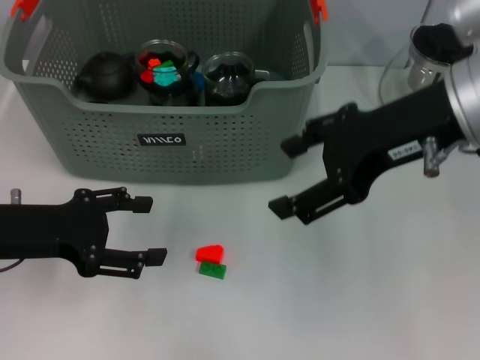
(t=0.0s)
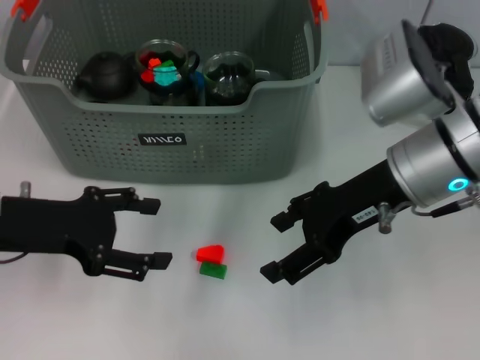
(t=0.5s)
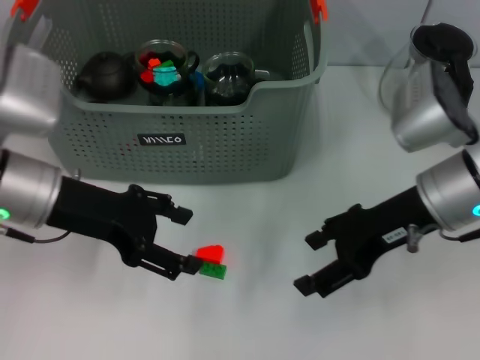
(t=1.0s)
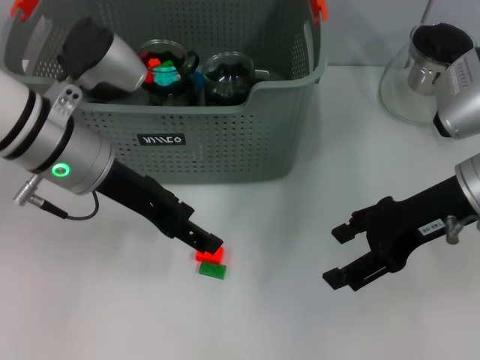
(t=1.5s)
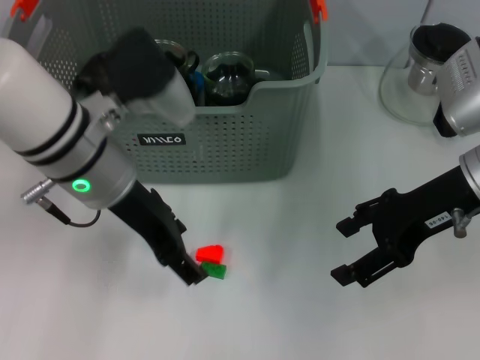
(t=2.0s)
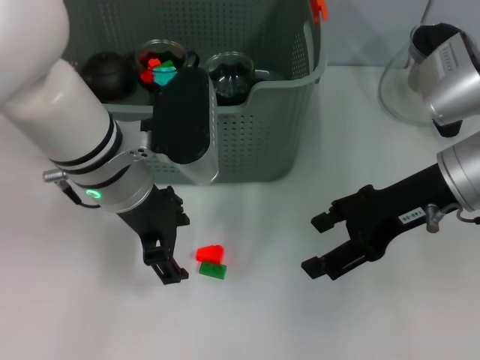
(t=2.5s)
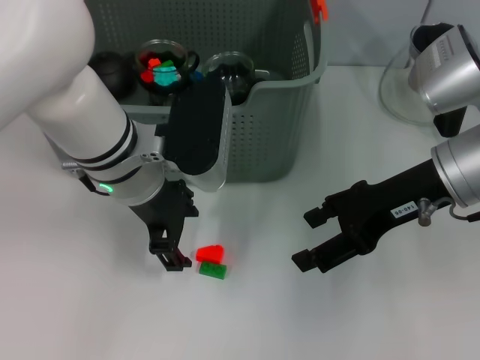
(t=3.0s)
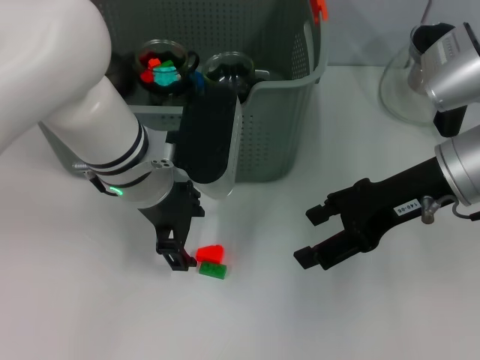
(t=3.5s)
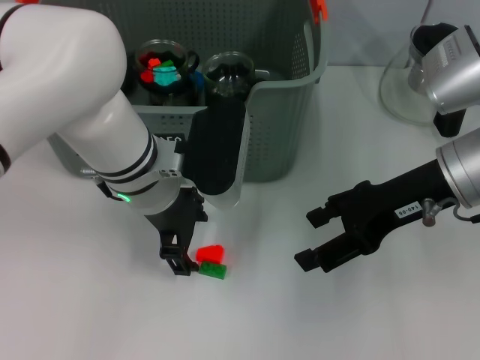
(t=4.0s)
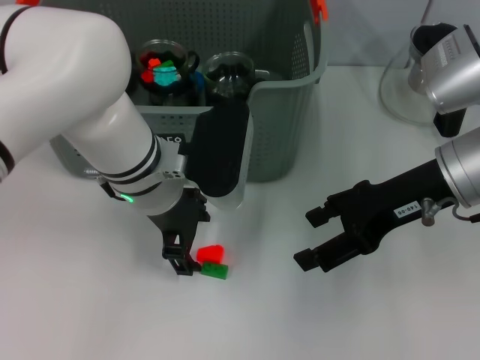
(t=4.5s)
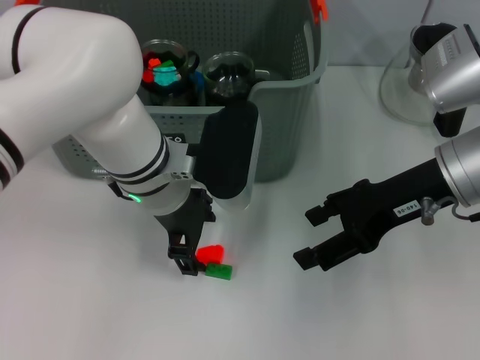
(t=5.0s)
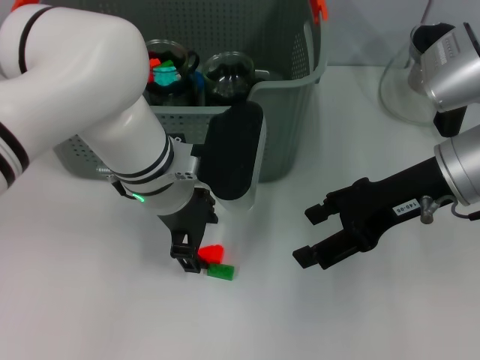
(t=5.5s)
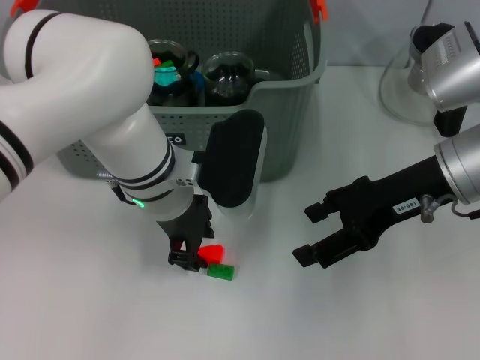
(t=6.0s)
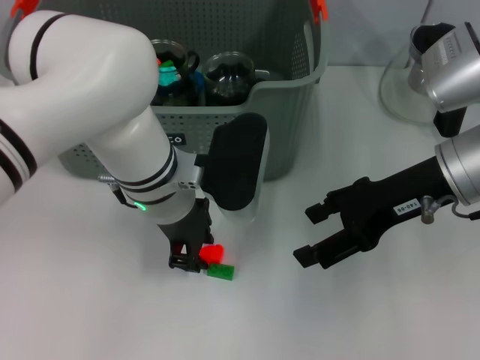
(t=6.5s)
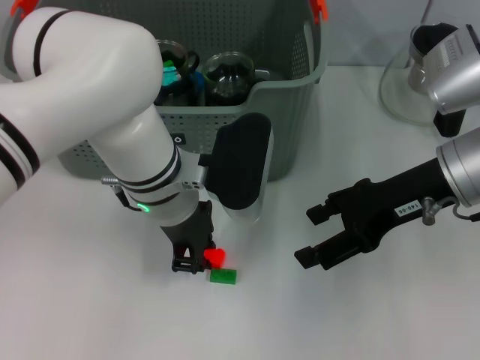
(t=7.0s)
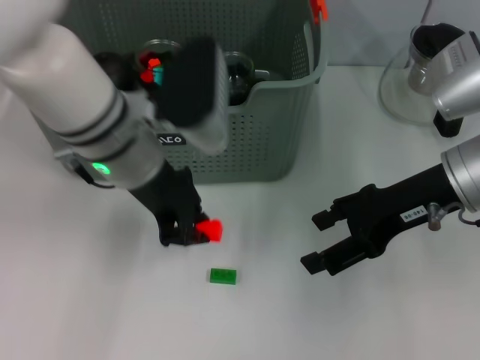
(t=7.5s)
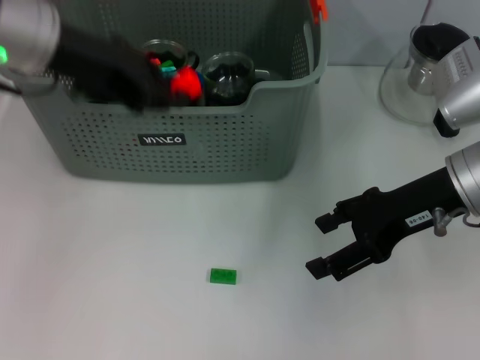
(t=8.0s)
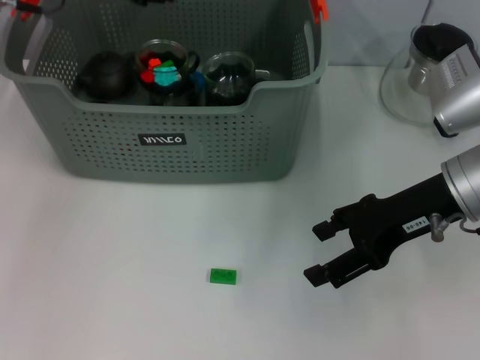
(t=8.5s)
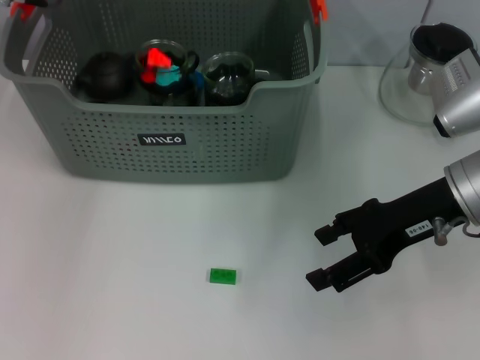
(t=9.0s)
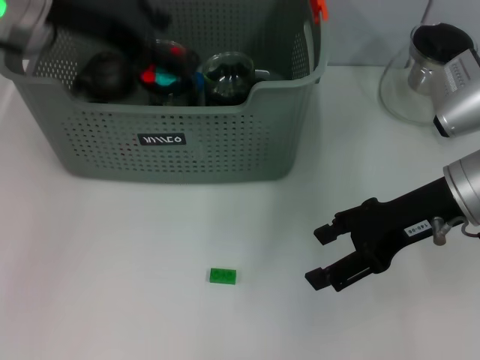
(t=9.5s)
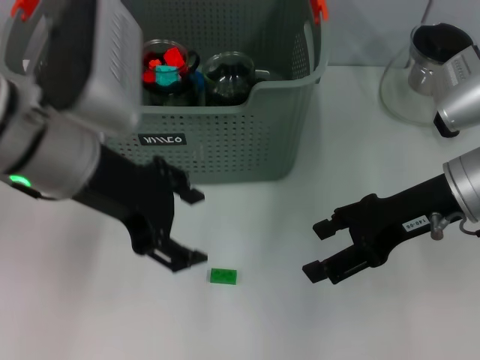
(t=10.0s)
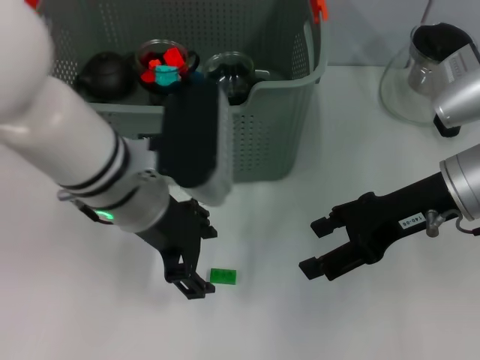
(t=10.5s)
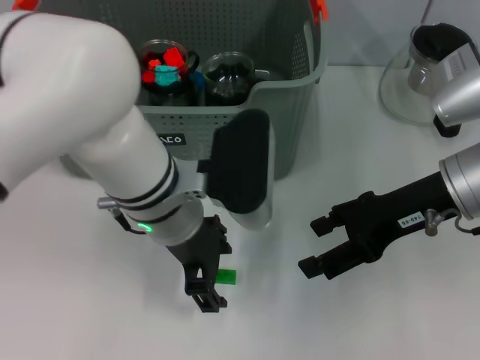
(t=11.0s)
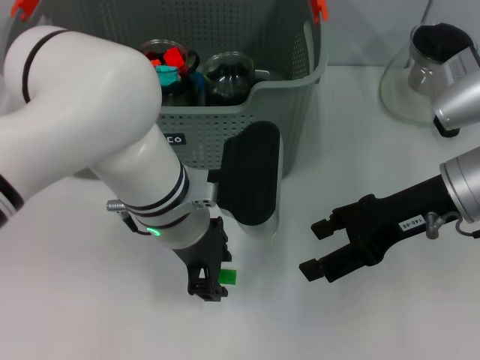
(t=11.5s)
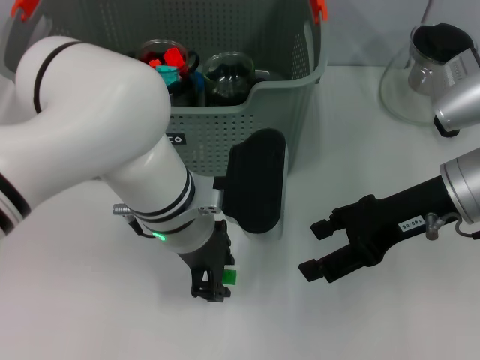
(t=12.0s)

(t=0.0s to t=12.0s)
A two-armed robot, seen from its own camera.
Task of the whole recording: pick up the teacup on the table and place it into the storage bin, pick up the block on the table and place it into the storage bin.
Step, t=0.0s - t=6.5s: Grasp the orange block with left gripper.
Step, t=7.0s - t=9.0s: Place the orange block in the storage box with left gripper.
t=0.0s - t=2.0s: The right gripper moves downward, about 10 cm. The left gripper is displaced to the right, upward and forward by roughly 15 cm.
t=2.0s - t=4.0s: The left gripper changes place by approximately 5 cm.
t=4.0s - t=6.0s: The left gripper closes up.
t=6.0s - t=8.0s: The left gripper goes roughly 20 cm upward and to the left.
t=8.0s - t=10.0s: The left gripper travels backward by about 5 cm, and opens up.
t=10.0s - t=12.0s: The left gripper moves to the right and downward, roughly 15 cm, and closes its fingers.

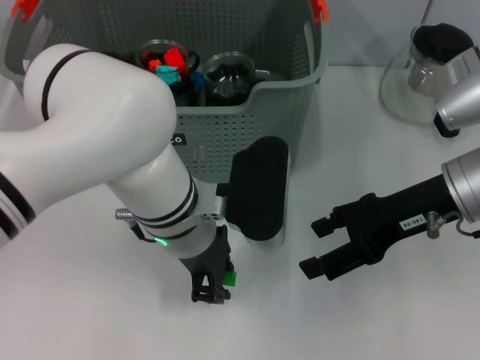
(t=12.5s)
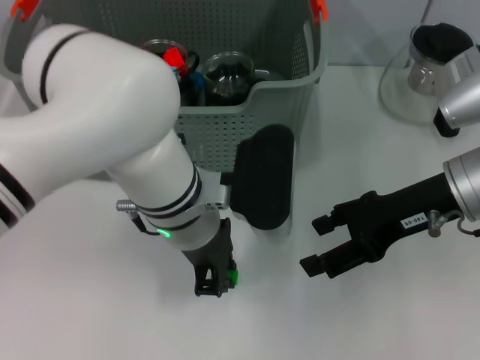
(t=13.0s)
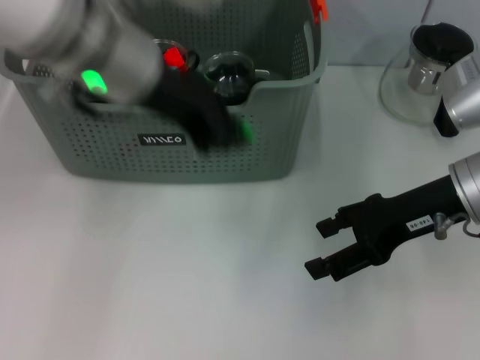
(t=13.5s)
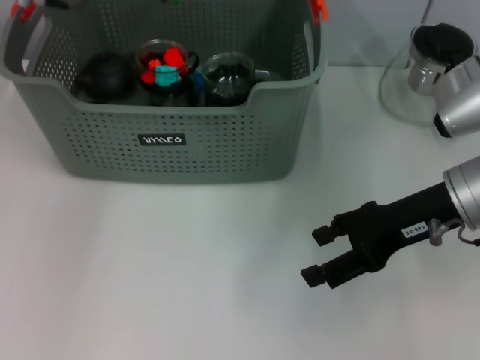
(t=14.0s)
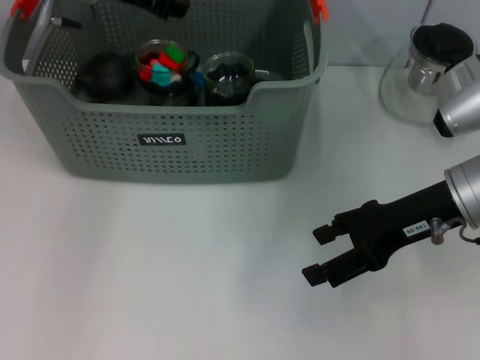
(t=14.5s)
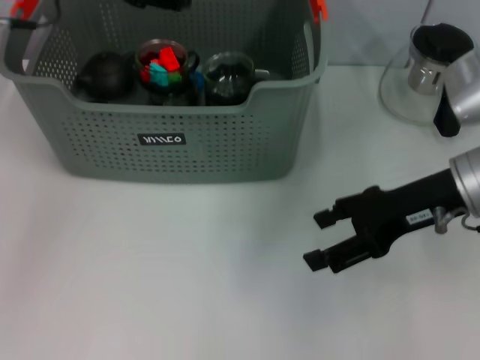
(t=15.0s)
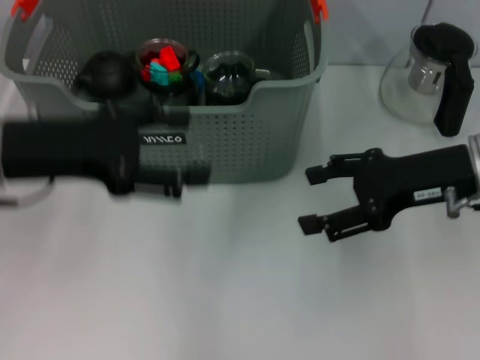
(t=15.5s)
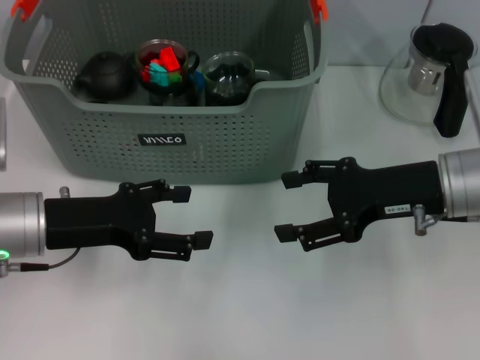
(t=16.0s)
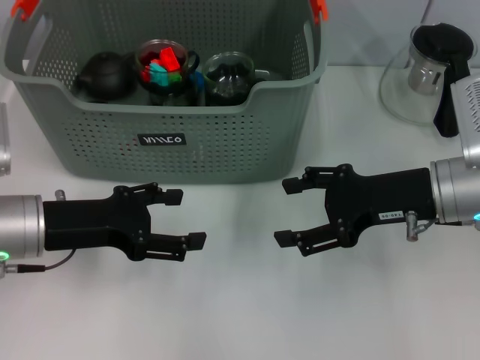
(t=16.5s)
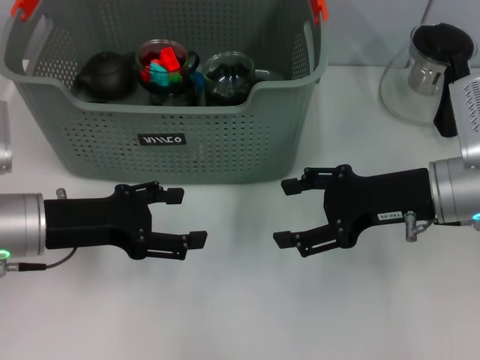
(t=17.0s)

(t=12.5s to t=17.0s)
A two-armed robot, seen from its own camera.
Task of the whole recording: pick up the teacup on the table and place it into the storage bin, pick up the block on the table and place it into the storage bin.
Step, t=13.0s - t=14.5s: Place the green block in the storage box with left gripper.
t=12.5s - t=14.5s: The left gripper shifts about 25 cm forward, to the left and upward.
t=14.5s - t=17.0s: The left gripper heads backward and downward, covering about 25 cm, and opens.

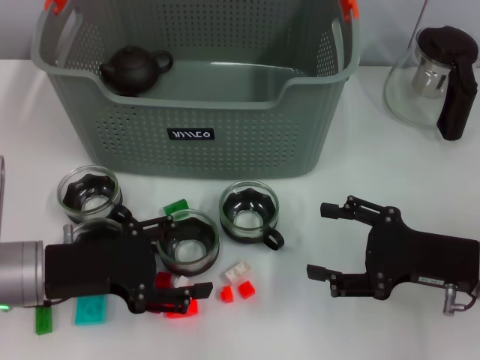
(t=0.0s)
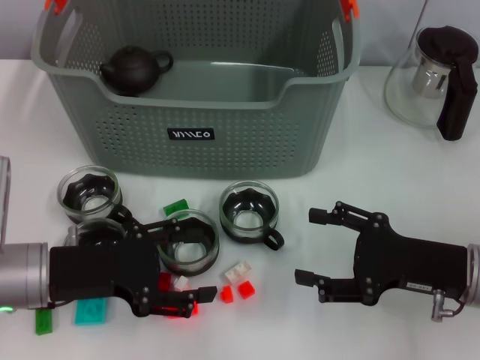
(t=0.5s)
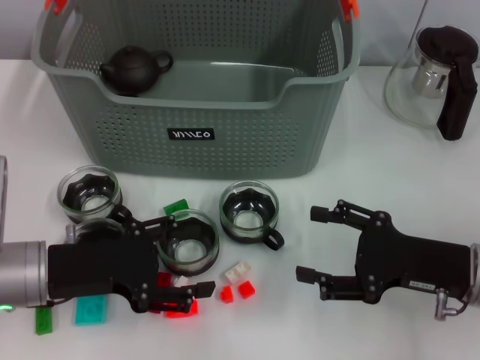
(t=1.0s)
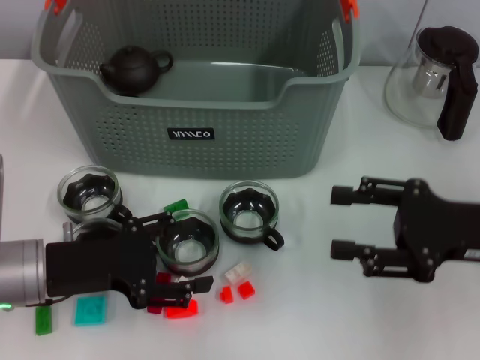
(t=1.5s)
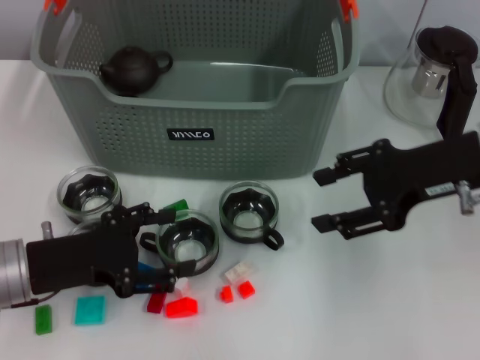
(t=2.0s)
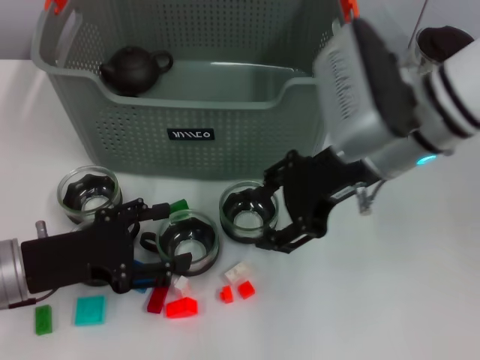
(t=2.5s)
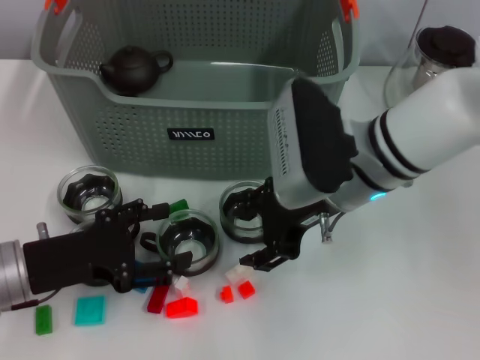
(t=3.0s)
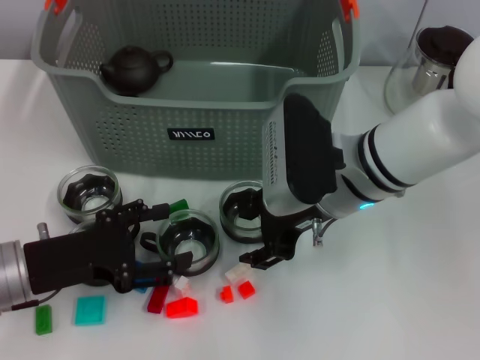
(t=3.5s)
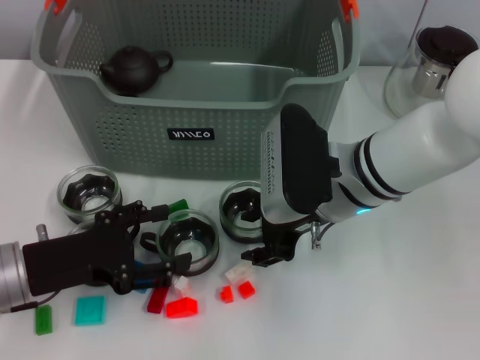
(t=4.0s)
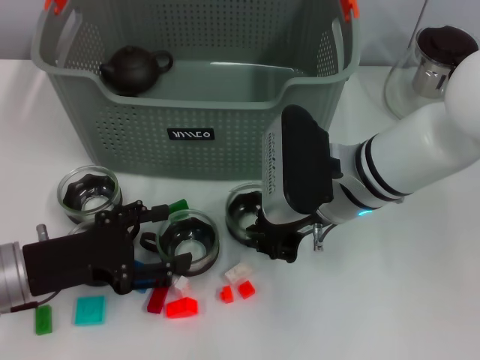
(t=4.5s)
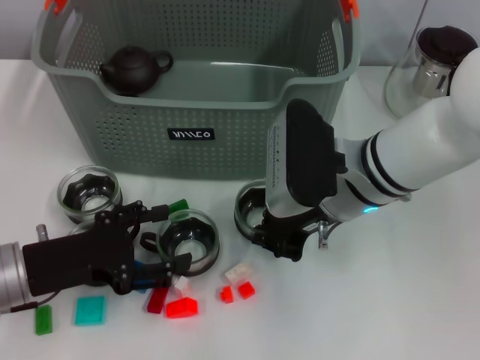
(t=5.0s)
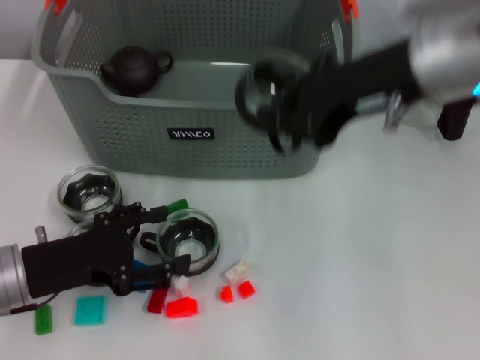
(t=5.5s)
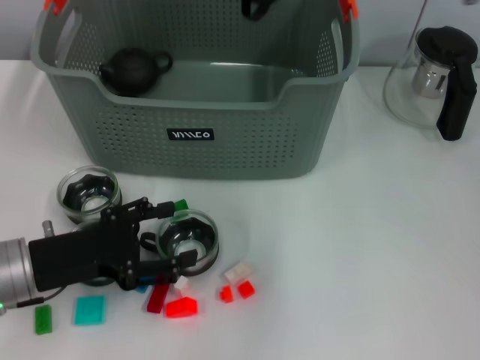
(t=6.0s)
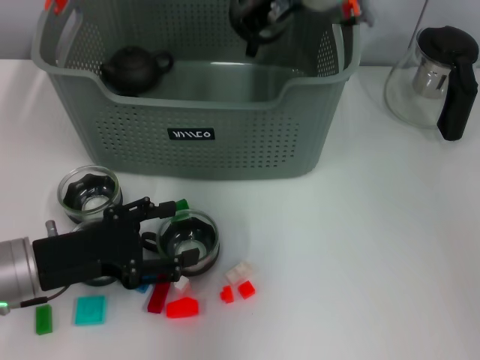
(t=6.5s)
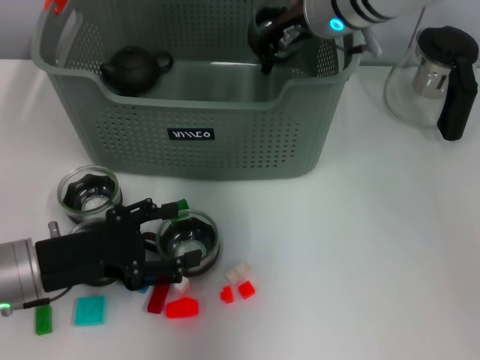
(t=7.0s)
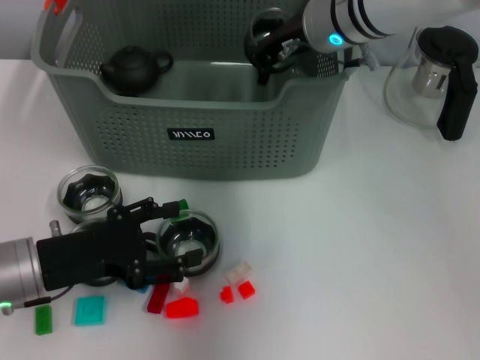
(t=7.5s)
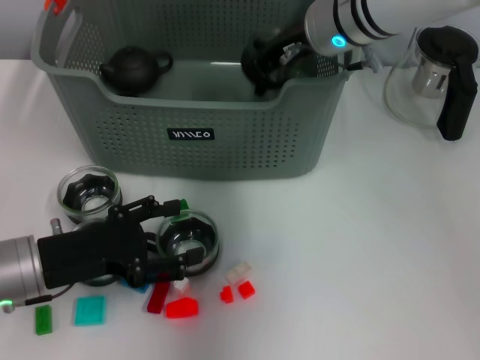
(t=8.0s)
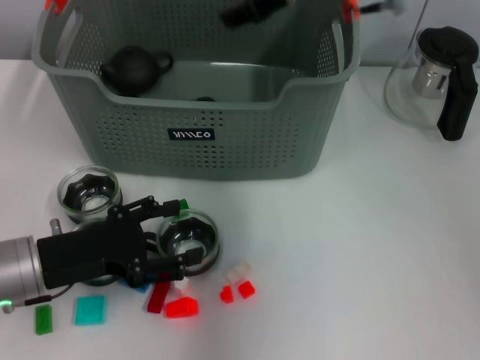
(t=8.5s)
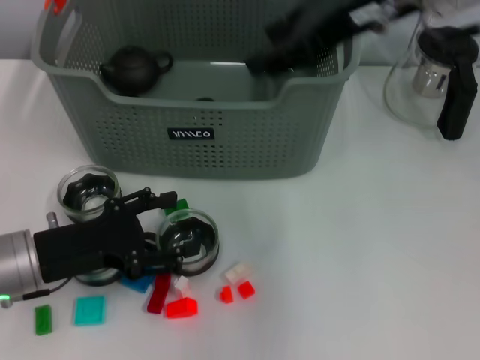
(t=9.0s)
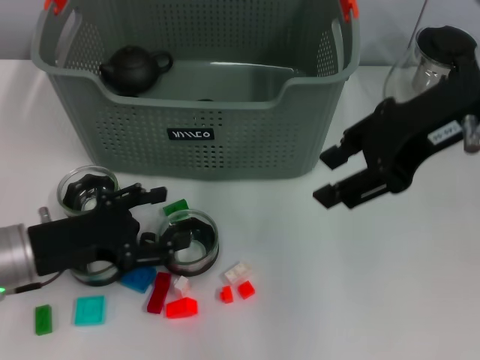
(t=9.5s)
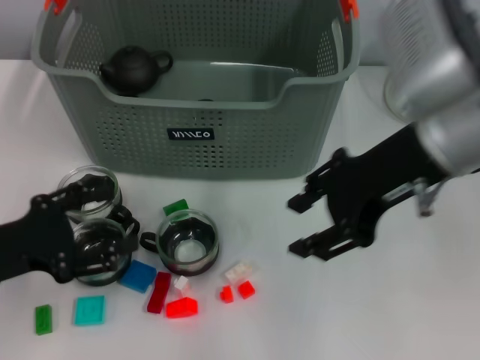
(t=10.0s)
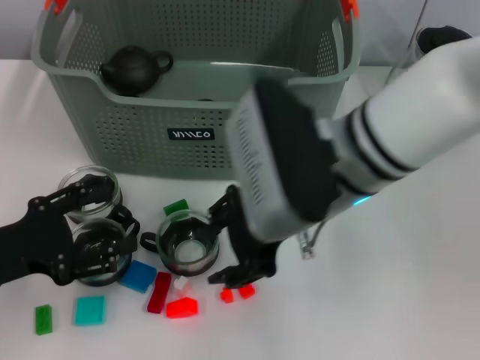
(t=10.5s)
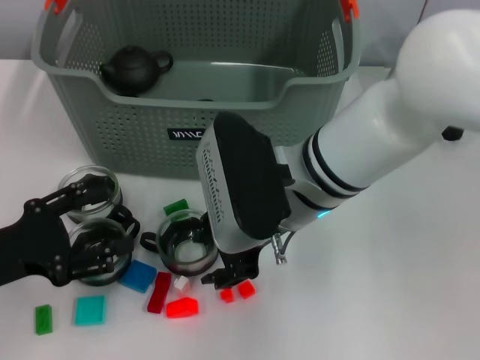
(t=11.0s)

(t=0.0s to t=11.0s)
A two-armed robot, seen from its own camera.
Task of the whole recording: pick up the teacup on the table and place it into the storage bin, pick up the block on the table and place it into the storage bin.
Step, t=0.0s - t=4.5s: Grasp the cup with right gripper.
Step, t=5.0s - t=8.0s: Place the cup in the storage box with right gripper.
t=0.0s - t=2.0s: The right gripper goes about 15 cm upward and forward.
t=2.0s - t=3.5s: The right gripper goes roughly 15 cm to the left and downward.
t=3.5s - t=5.5s: The right gripper travels upward and to the right by some 15 cm, and closes.
t=5.5s - t=7.5s: The right gripper shifts approximately 15 cm forward, downward and to the left.
t=7.5s - t=9.0s: The right gripper shifts about 15 cm upward, backward and to the right, and opens its fingers.
t=9.0s - t=11.0s: The left gripper goes roughly 5 cm to the left, while the right gripper goes roughly 20 cm downward and to the left.
